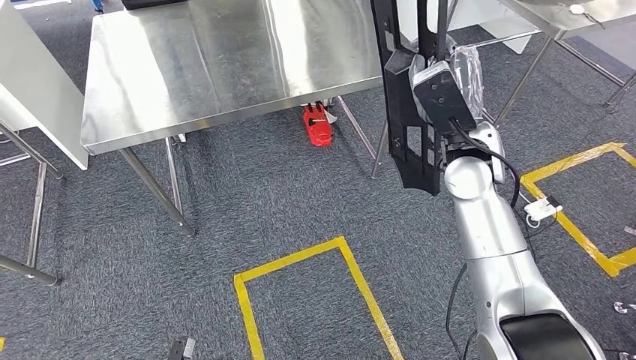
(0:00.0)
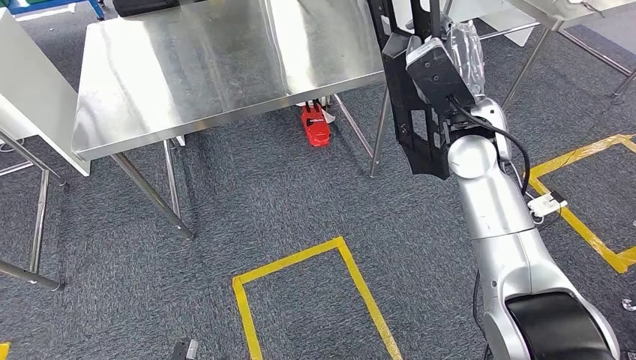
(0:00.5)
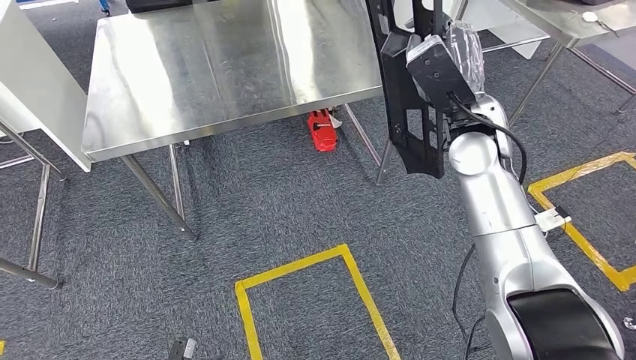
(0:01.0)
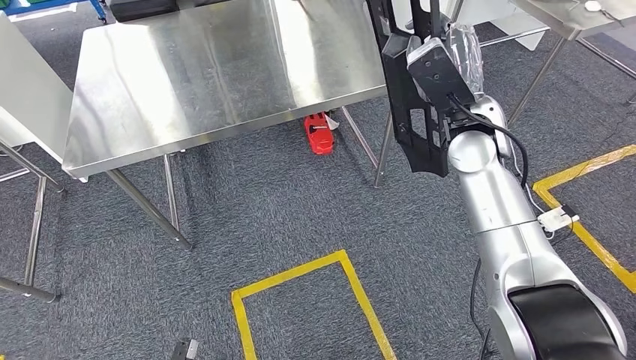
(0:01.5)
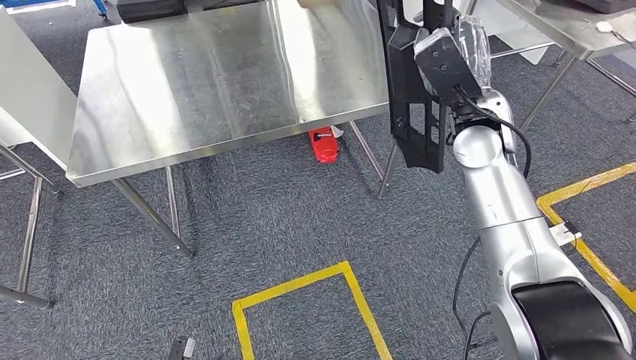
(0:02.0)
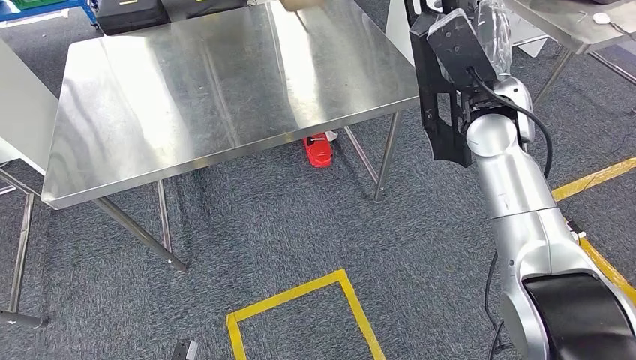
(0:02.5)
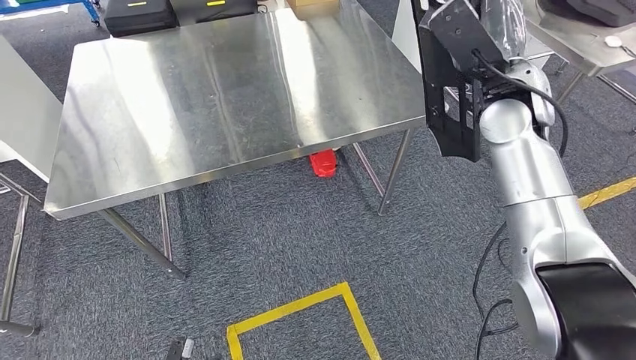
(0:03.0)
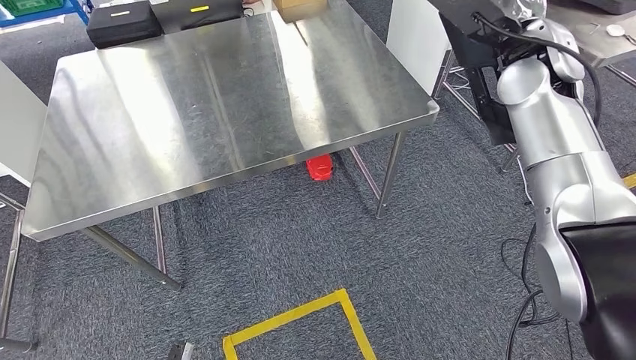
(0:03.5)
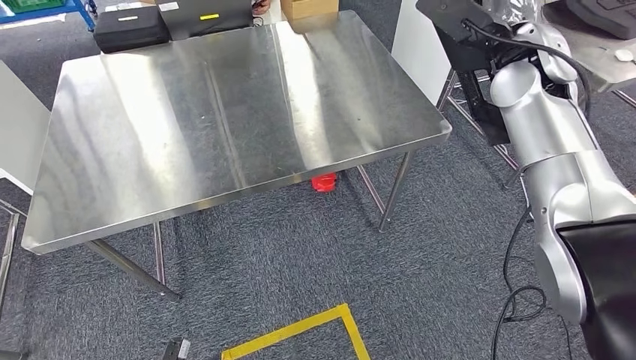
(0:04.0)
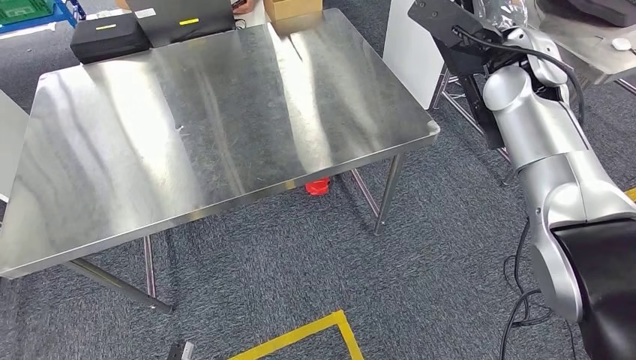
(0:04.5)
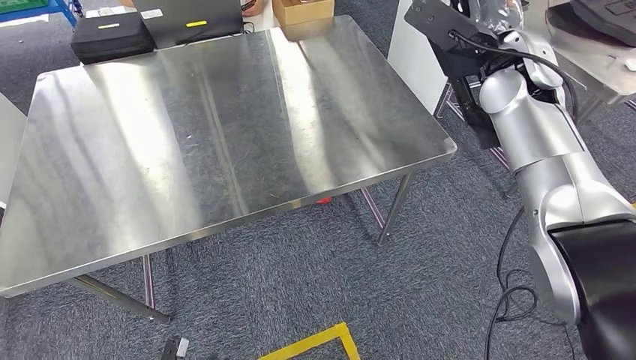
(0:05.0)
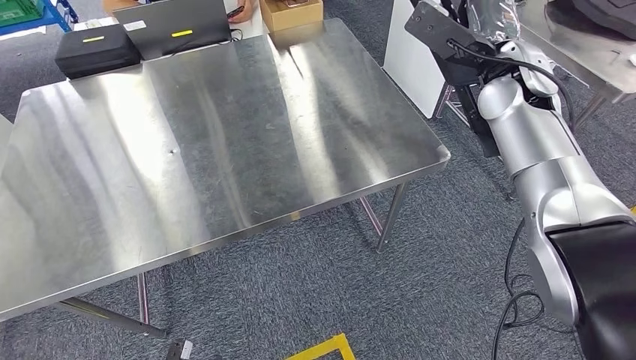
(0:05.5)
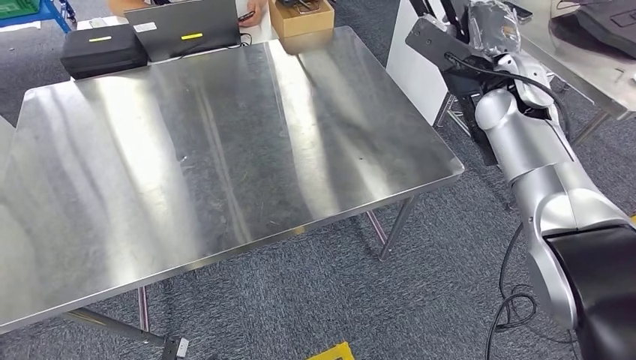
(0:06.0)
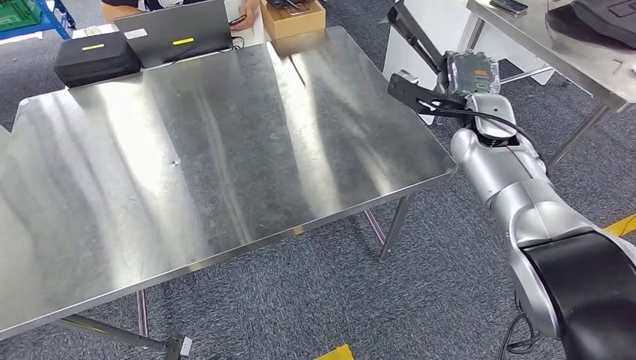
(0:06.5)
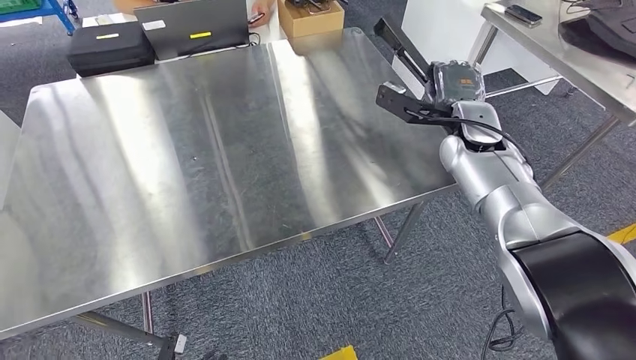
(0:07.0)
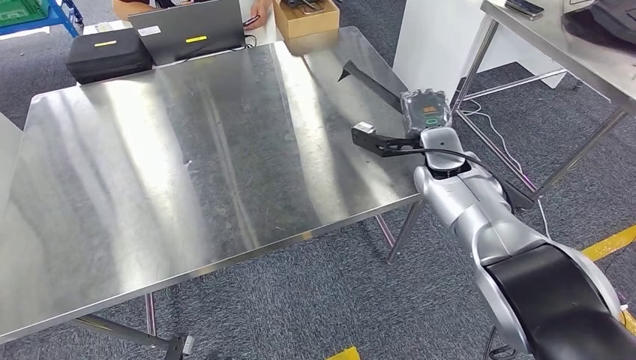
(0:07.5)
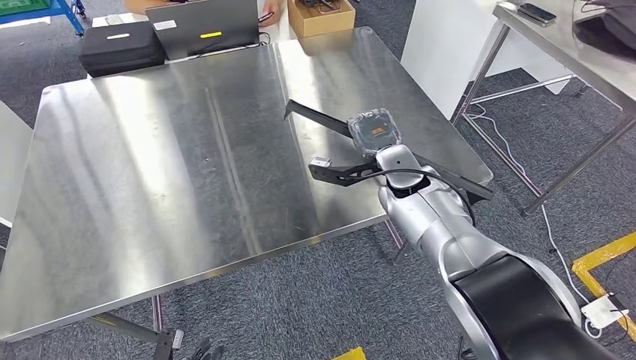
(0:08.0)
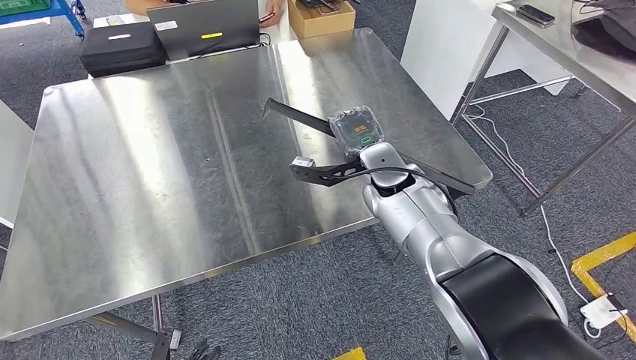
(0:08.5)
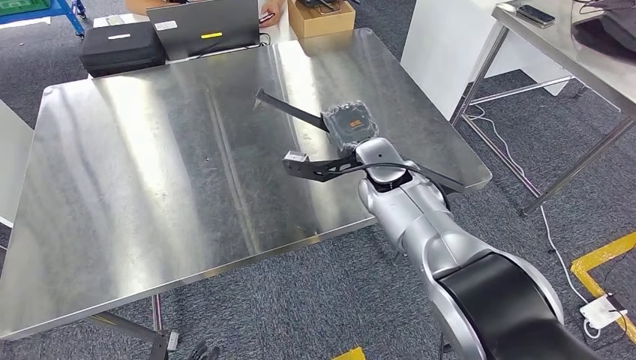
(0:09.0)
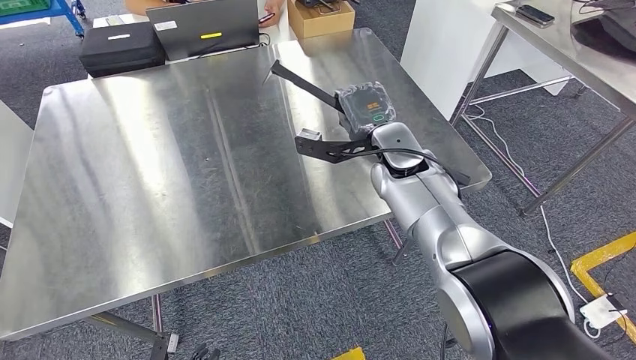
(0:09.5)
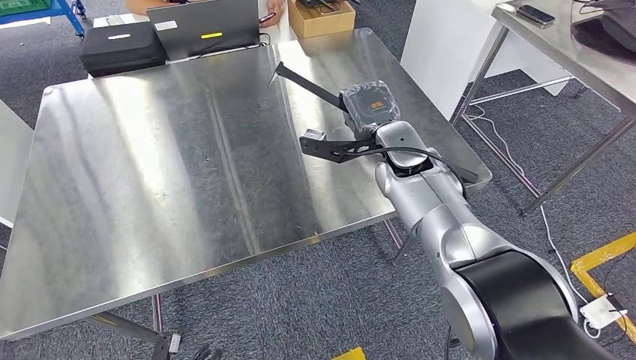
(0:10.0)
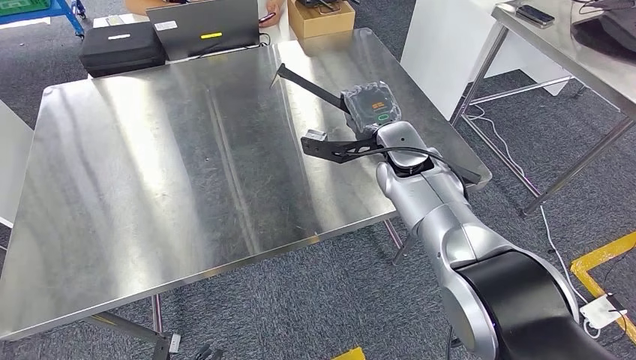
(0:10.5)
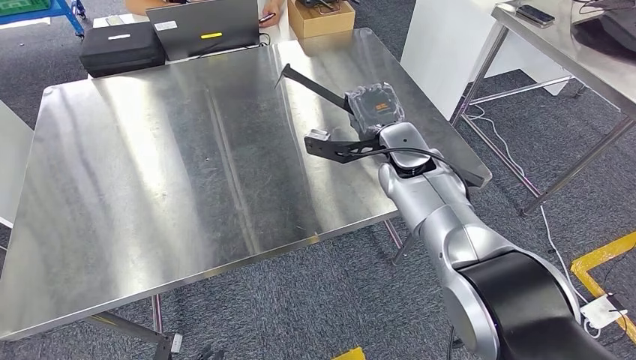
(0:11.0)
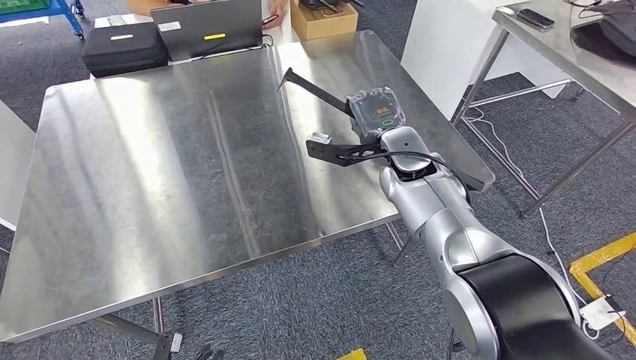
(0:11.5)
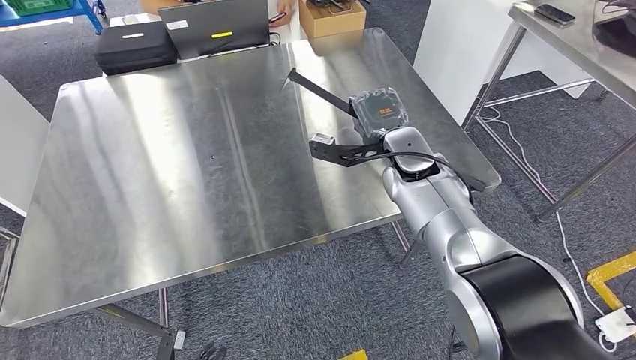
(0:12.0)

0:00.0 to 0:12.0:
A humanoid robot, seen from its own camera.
0:08.0 to 0:10.0: The hands move only a little.

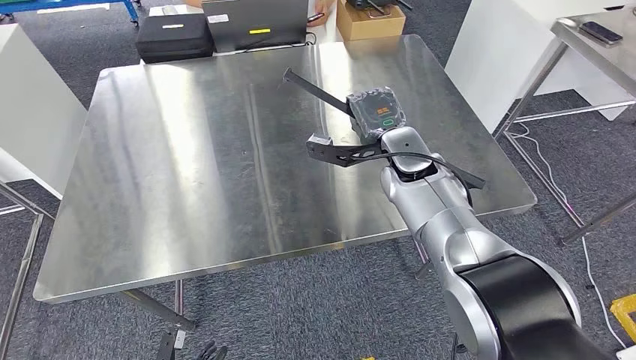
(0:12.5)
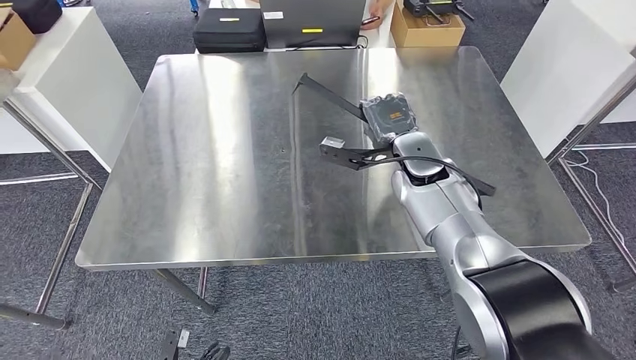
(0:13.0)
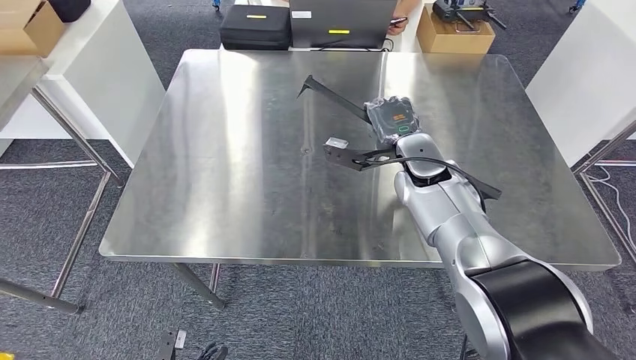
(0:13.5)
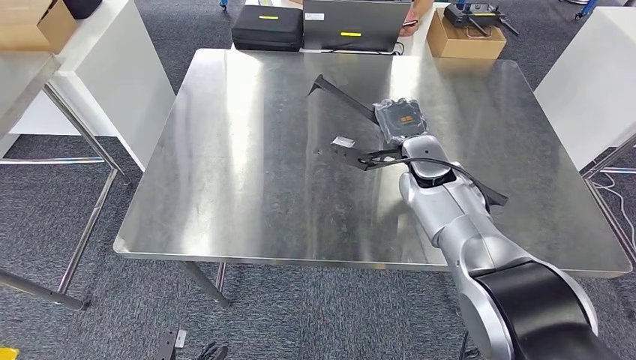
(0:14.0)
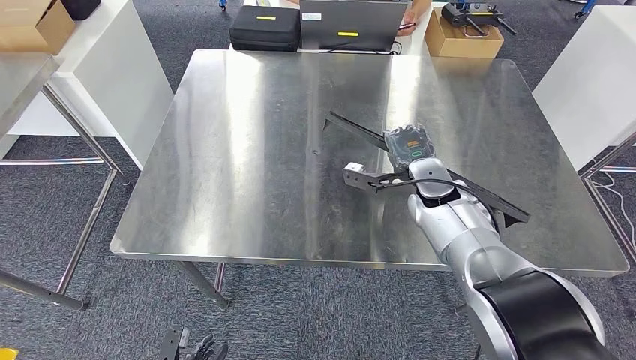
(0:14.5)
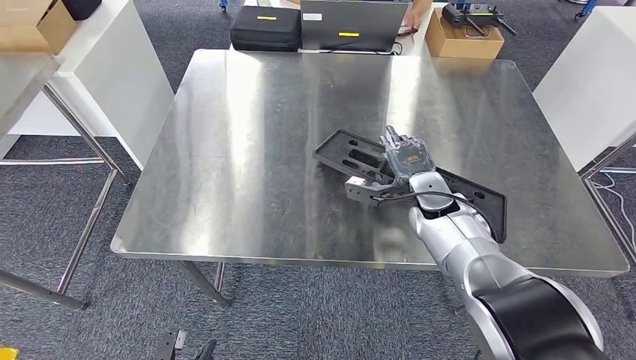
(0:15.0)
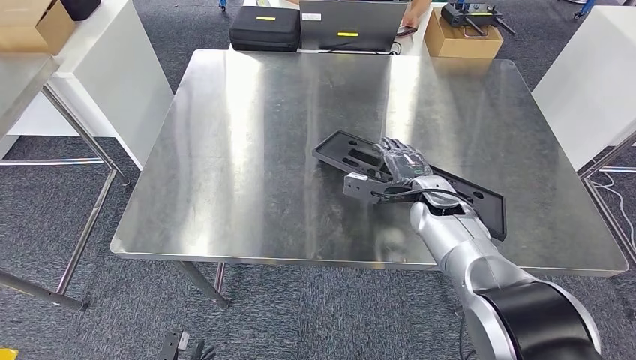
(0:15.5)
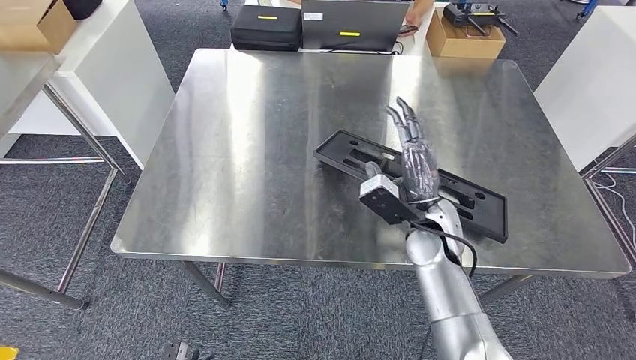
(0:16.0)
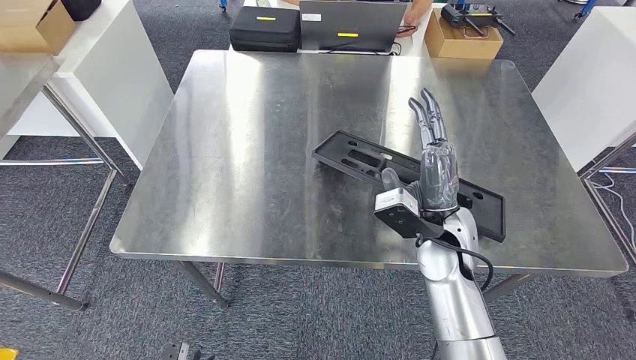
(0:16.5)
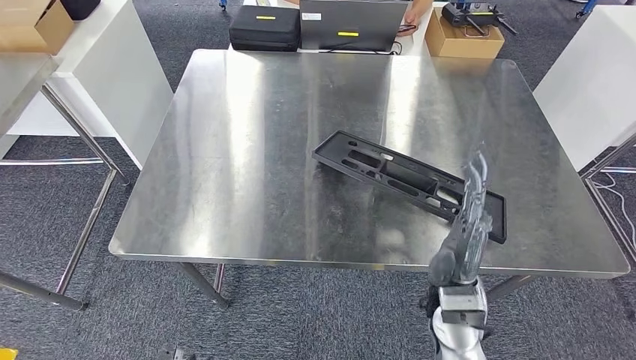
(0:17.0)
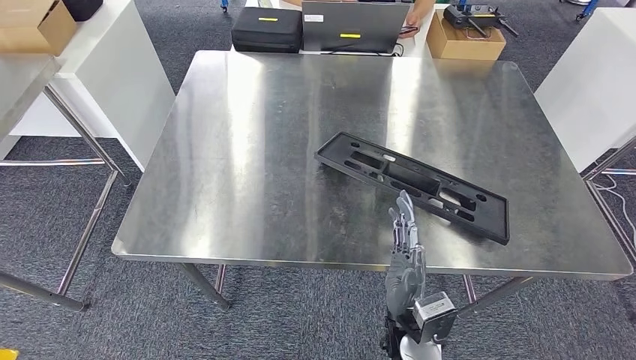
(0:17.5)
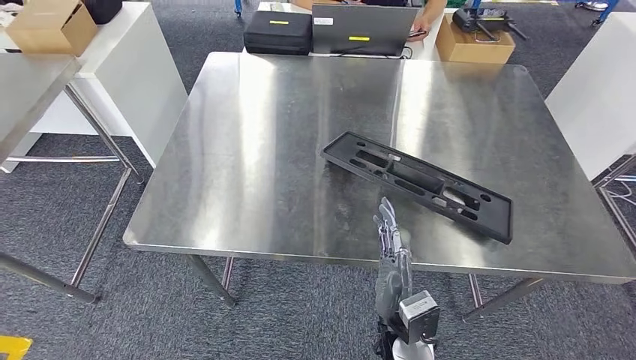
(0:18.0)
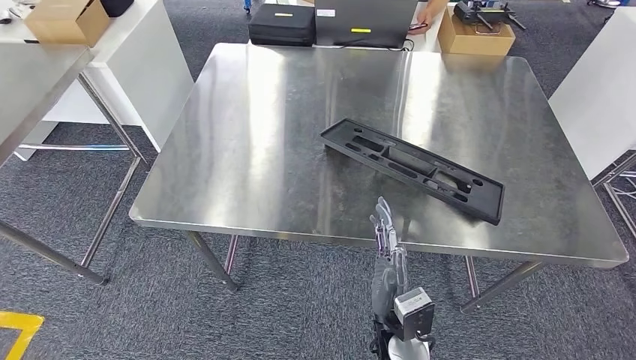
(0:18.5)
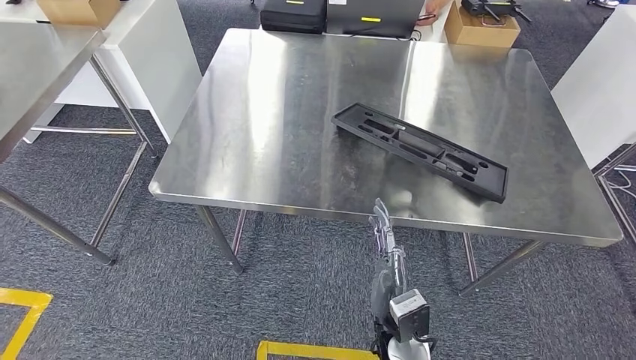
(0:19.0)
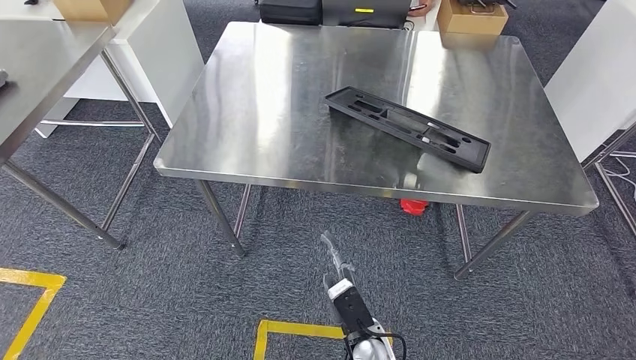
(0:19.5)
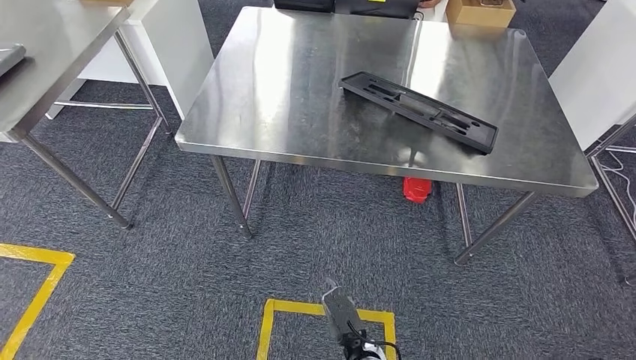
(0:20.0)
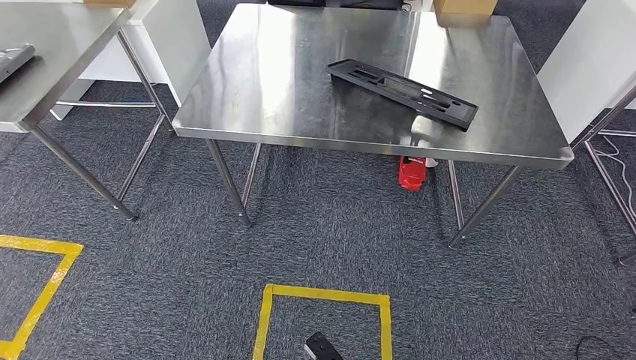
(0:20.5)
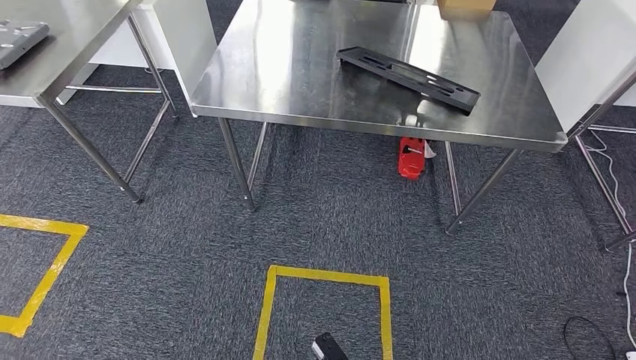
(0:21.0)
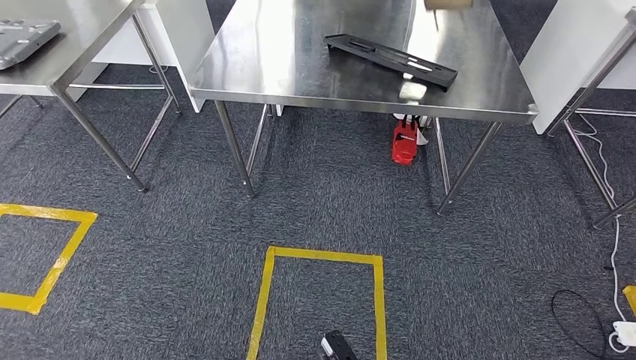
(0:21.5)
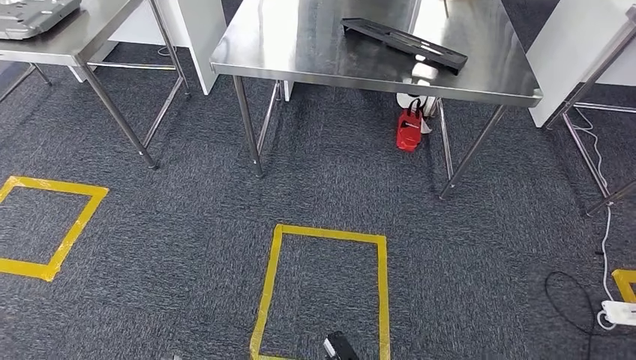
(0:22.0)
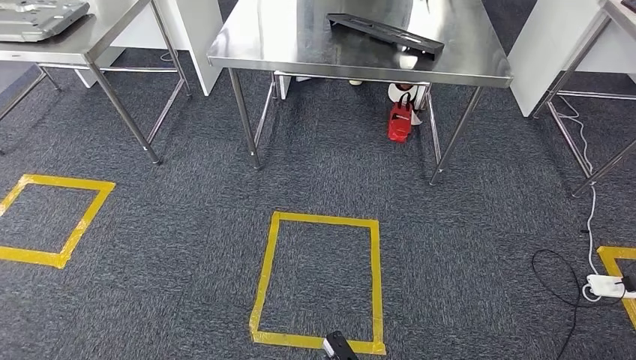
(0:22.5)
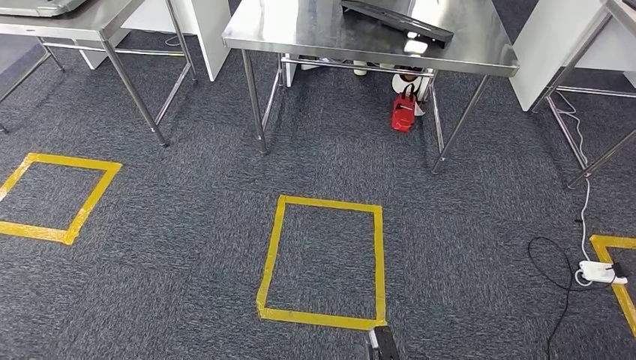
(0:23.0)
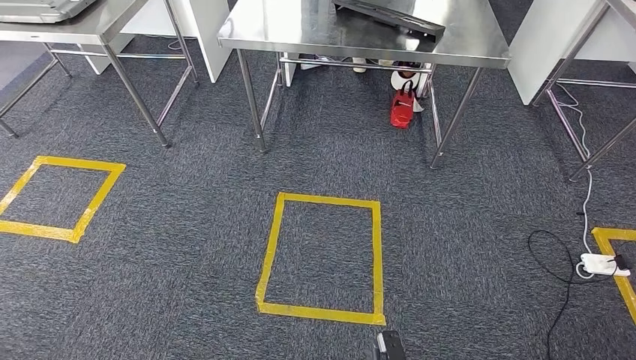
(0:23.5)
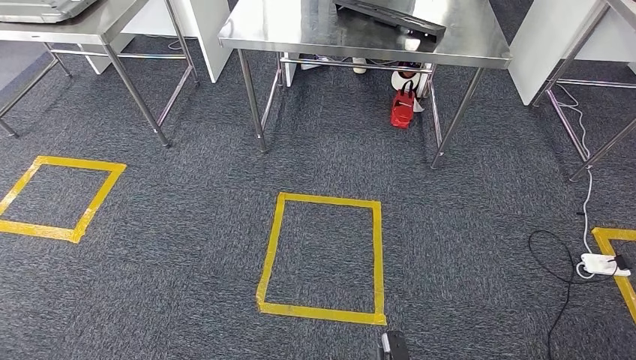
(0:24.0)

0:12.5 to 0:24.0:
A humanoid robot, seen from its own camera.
Step, 0:12.5 to 0:17.5: Insert the large material into the corresponding slot on the workbench.
0:14.5 to 0:16.5: The right hand goes roughly 10 cm backward.
